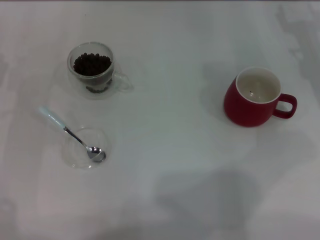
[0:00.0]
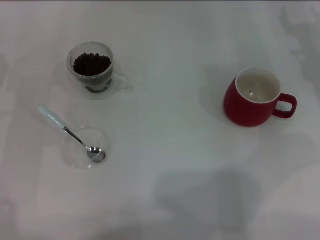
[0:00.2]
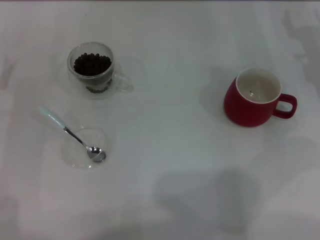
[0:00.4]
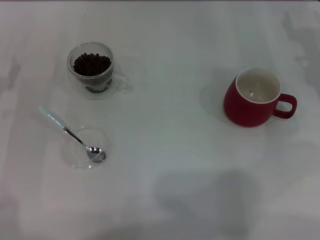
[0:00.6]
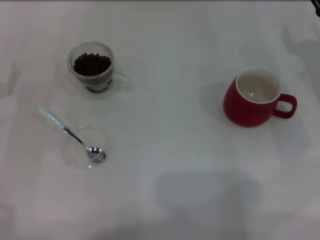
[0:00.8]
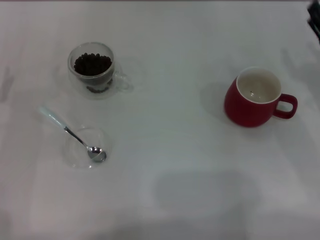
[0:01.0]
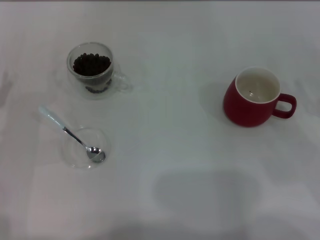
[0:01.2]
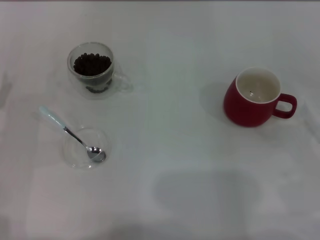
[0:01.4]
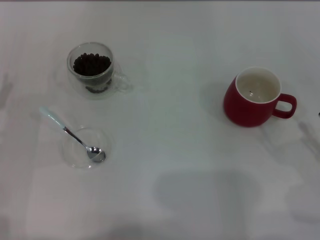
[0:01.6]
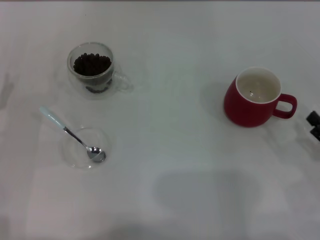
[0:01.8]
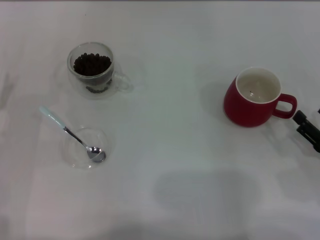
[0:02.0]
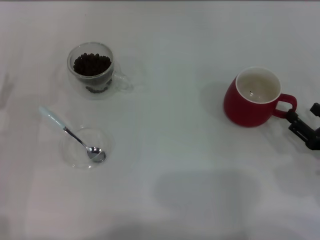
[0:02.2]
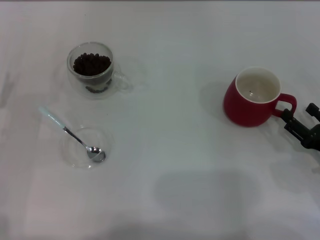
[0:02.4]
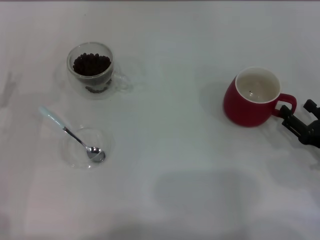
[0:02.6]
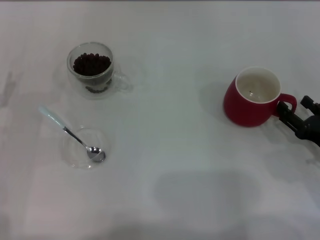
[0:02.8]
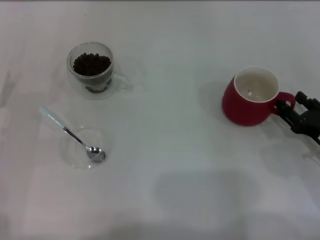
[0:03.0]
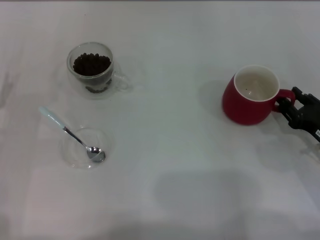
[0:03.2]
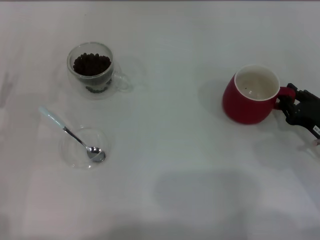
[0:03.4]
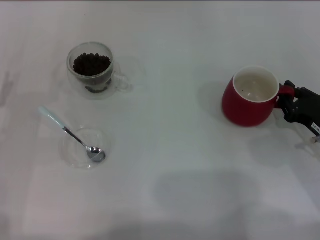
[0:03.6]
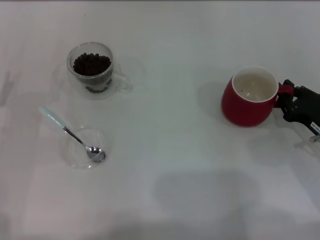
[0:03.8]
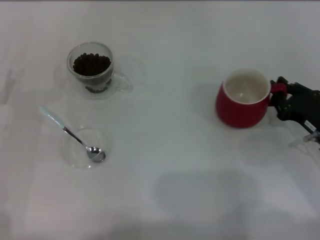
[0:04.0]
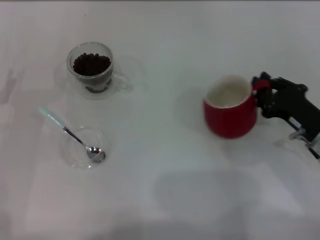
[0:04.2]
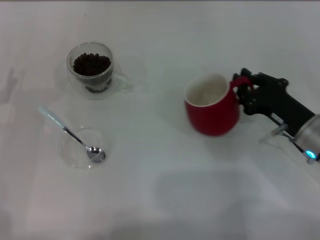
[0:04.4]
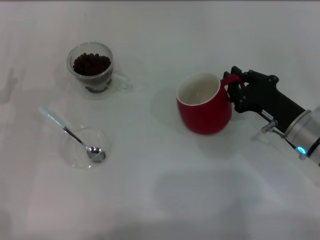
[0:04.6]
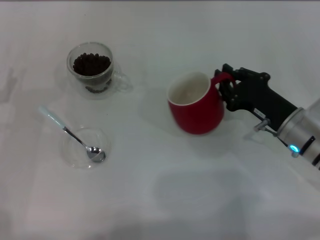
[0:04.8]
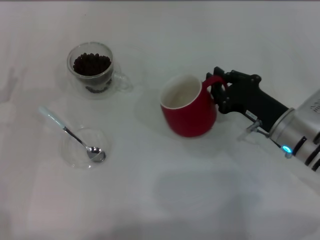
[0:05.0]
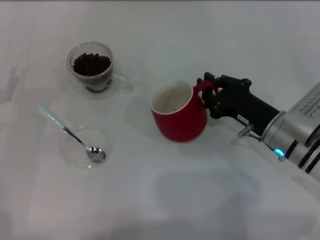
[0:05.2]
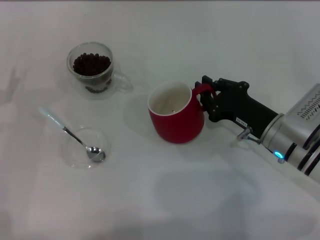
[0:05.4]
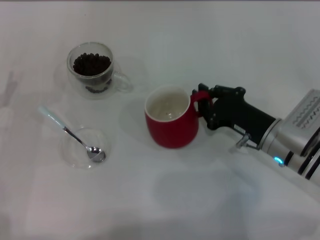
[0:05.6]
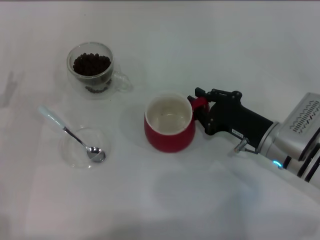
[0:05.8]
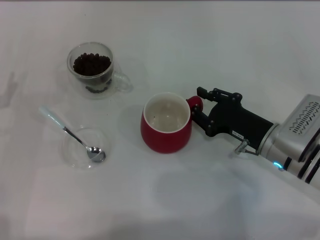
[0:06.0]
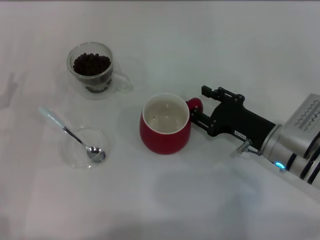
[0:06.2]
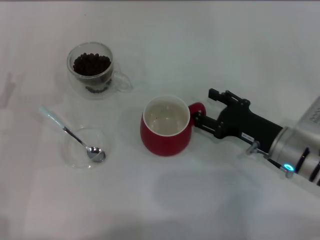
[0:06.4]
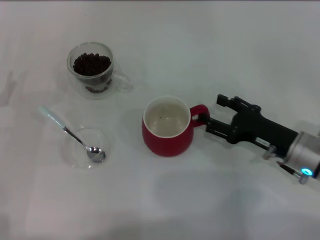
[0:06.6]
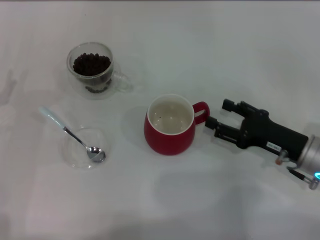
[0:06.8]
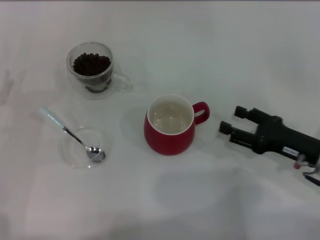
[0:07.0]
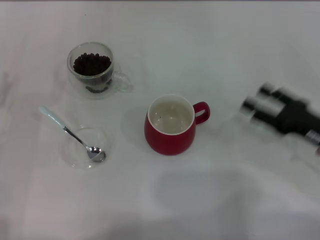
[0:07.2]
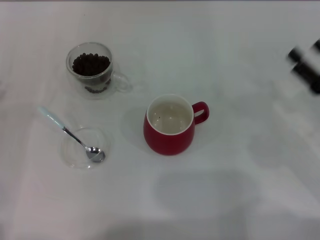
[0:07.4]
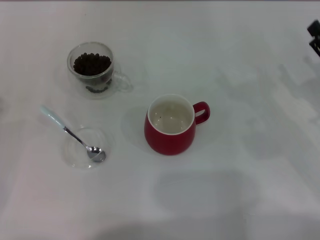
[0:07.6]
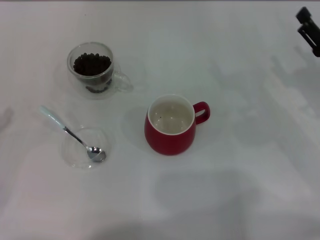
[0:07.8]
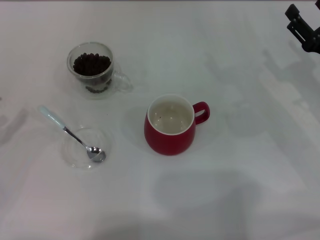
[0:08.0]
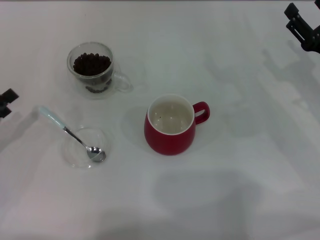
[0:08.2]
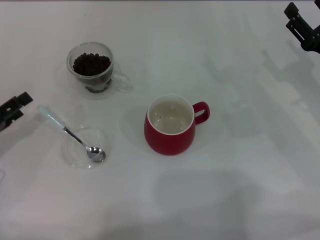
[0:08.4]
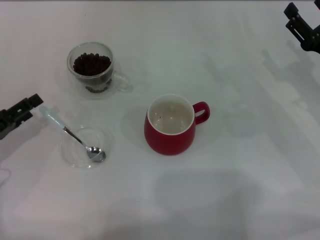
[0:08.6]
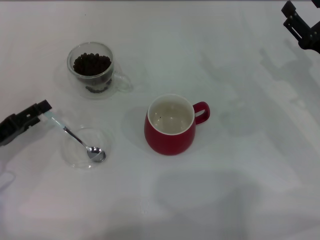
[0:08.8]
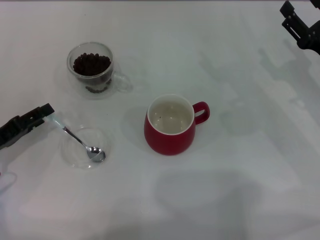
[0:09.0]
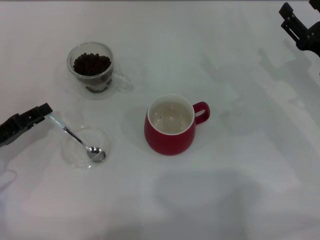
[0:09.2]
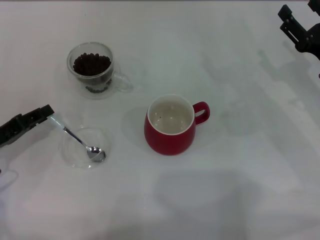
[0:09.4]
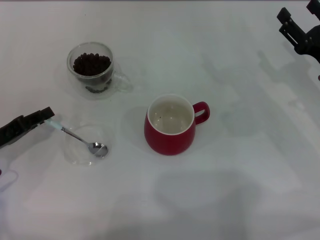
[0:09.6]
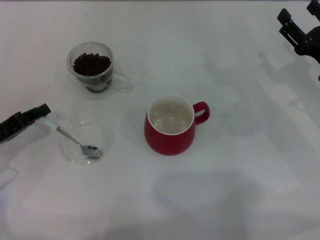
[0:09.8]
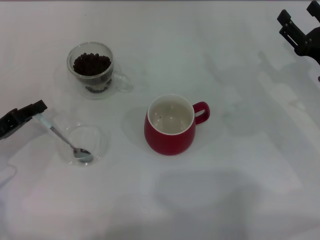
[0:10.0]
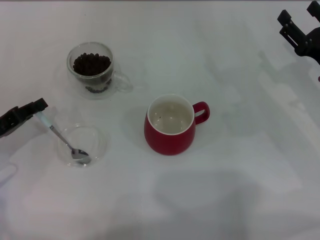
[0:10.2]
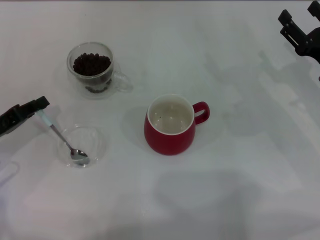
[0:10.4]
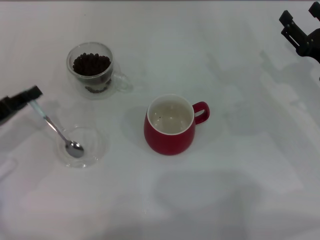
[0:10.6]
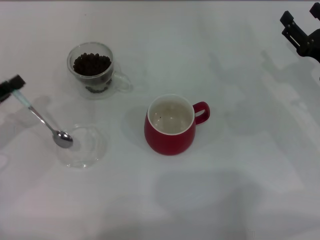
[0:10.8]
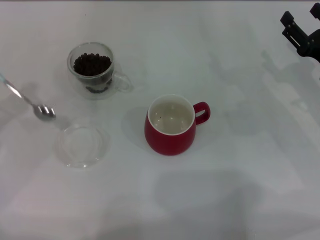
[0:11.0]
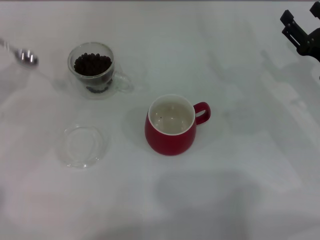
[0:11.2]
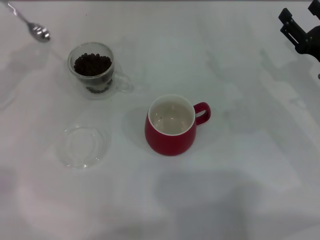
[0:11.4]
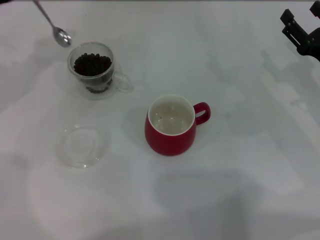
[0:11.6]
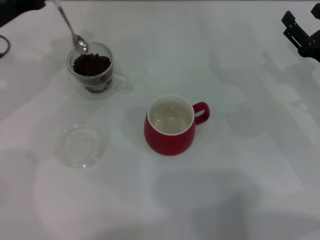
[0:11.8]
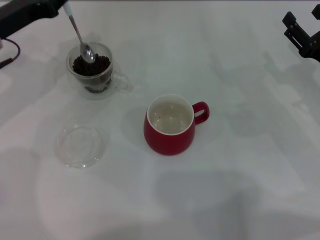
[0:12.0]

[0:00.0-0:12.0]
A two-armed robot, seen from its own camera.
Task of the whole recording: Use a blue spoon to take out the coffee beans from the glass and pour them into the red cup.
Step, 0:00.0 to 0:06.8: Move the cup to the center of view with the left gripper.
Step, 0:07.0 to 0:10.8: Pick up the spoon with the right gripper.
0:00.0 to 0:01.6: The right gripper goes some 25 cm backward.
0:01.6 to 0:03.0: The right gripper heads forward, covering about 5 cm.
0:03.0 to 0:04.4: The right gripper goes about 5 cm to the left, and closes.
0:04.4 to 0:06.0: The right gripper heads to the left, covering about 5 cm.
0:06.0 to 0:07.6: The right gripper heads to the right, covering roughly 10 cm, and opens. The left gripper moves some 5 cm.
0:07.6 to 0:09.0: The left gripper is displaced to the right by some 5 cm.
0:09.0 to 0:10.4: The left gripper closes its fingers.
0:10.4 to 0:12.0: The left gripper heads forward, upward and to the right, covering approximately 15 cm.

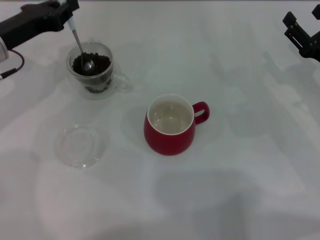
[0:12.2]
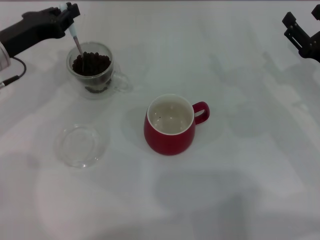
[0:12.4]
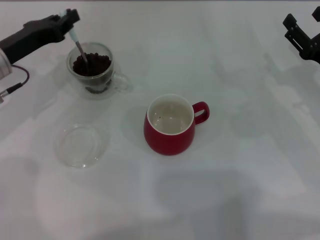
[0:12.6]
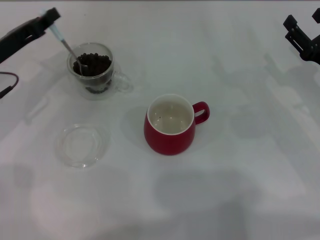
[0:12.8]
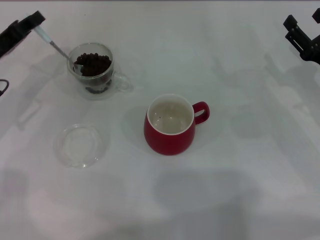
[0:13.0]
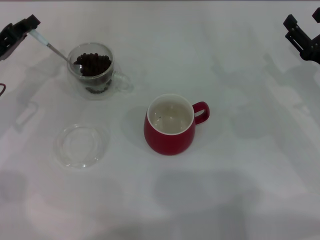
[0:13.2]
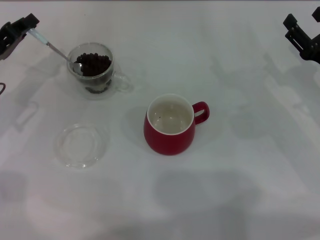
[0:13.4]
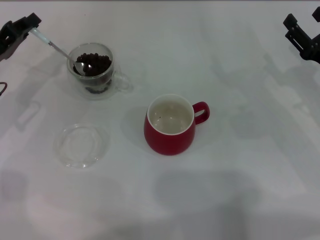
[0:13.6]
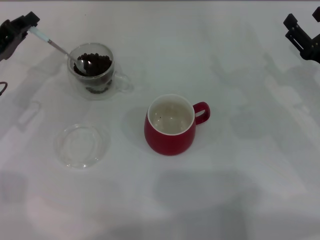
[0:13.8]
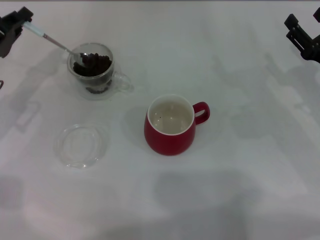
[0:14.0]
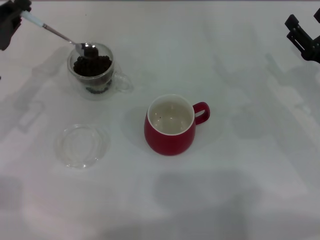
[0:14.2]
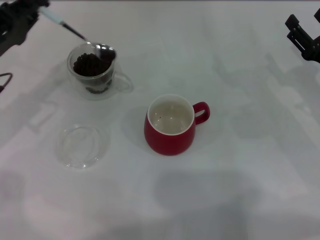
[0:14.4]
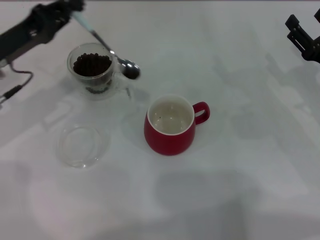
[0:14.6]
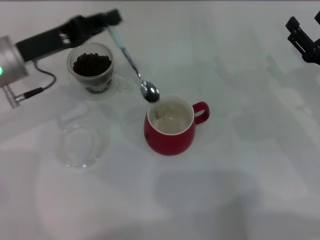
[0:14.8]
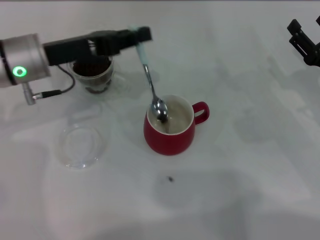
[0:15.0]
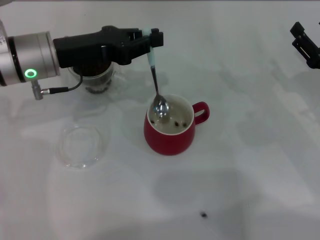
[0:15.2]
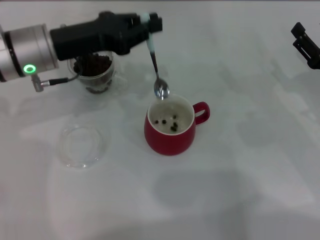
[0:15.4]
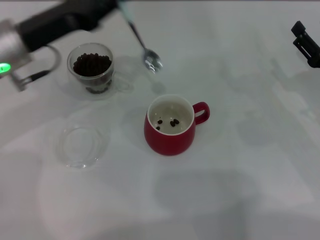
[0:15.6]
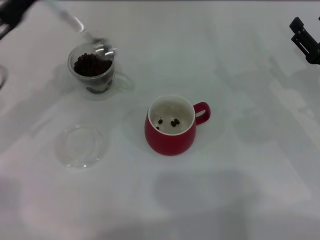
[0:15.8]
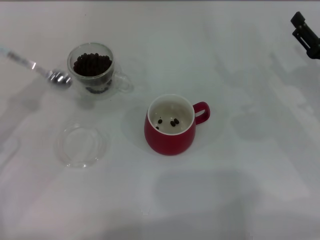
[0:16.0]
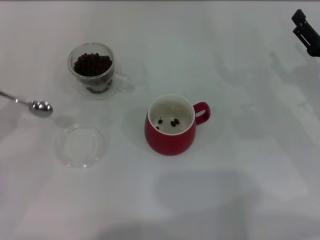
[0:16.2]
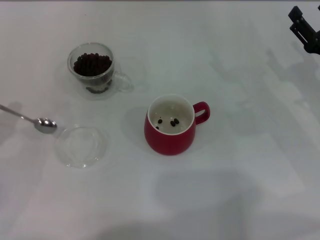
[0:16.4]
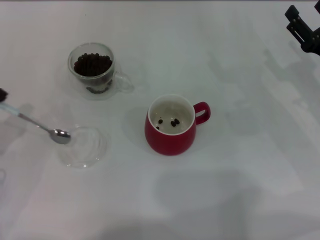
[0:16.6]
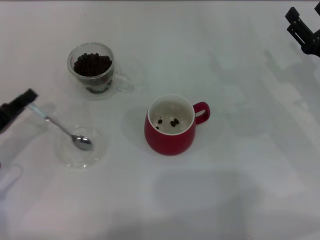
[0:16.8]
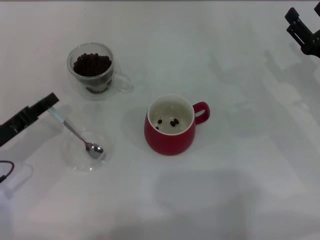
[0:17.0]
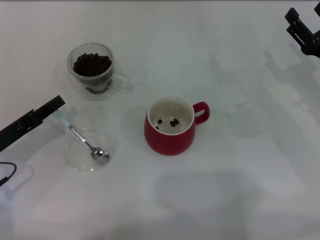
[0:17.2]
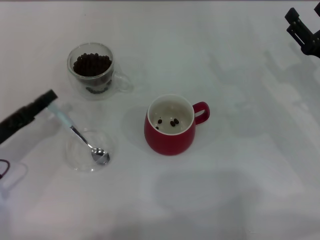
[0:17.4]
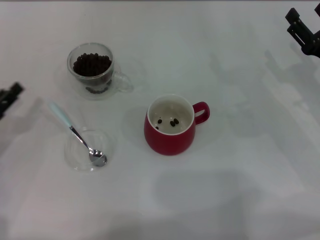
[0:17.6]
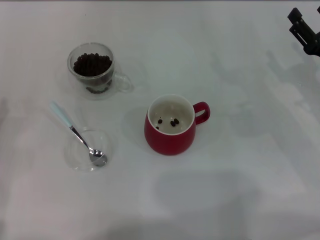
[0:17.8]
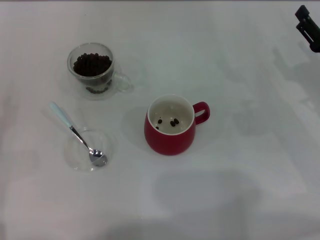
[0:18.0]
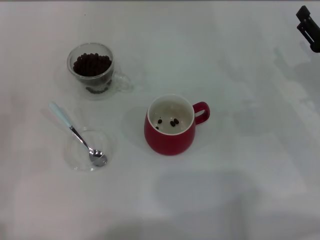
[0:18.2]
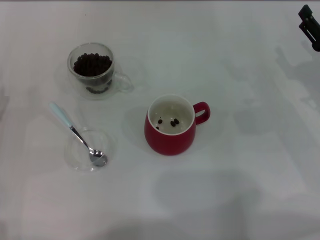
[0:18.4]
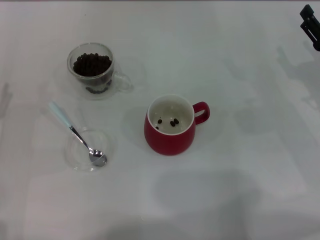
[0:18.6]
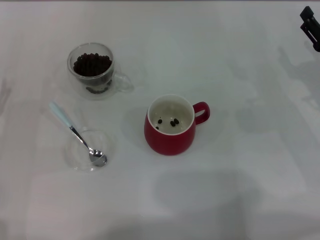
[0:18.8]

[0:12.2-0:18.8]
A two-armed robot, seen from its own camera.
Task of the whole recording: Use a blue spoon to take out the coffee beans from the glass and pour them into the red cup.
0:12.2 to 0:13.8: The left gripper moves some 5 cm.
0:13.8 to 0:15.4: The left gripper travels to the right and upward by roughly 10 cm.
0:15.4 to 0:17.2: The left gripper shifts approximately 20 cm backward, to the left and downward.
0:17.2 to 0:18.8: The left gripper opens.
